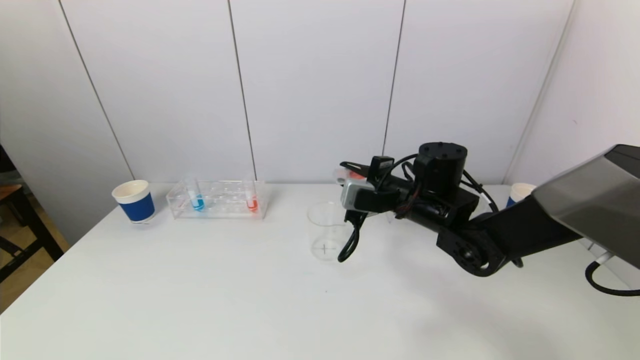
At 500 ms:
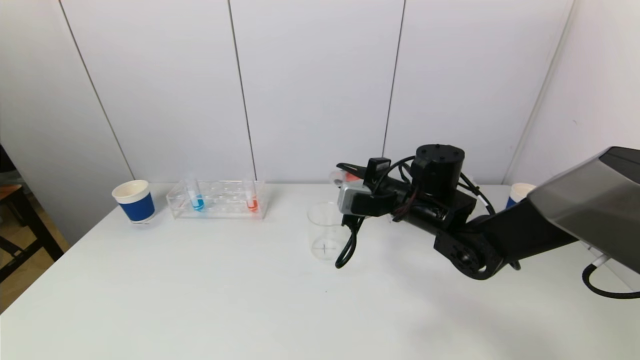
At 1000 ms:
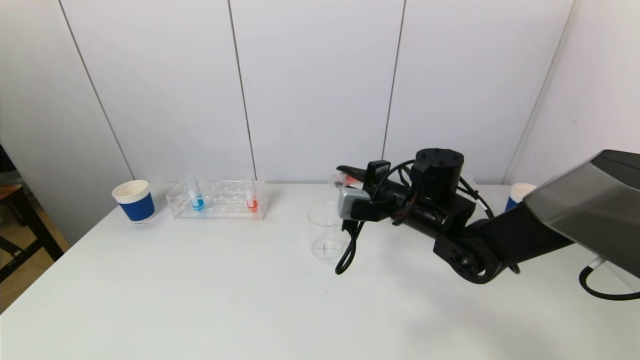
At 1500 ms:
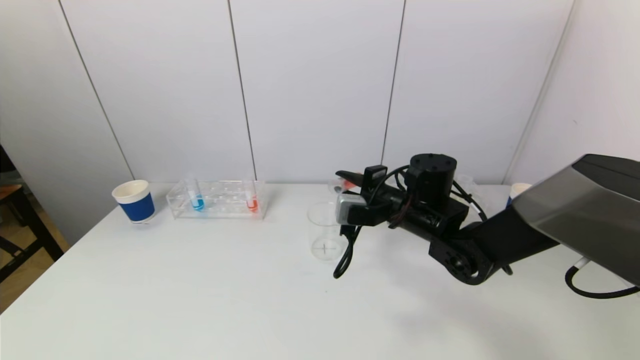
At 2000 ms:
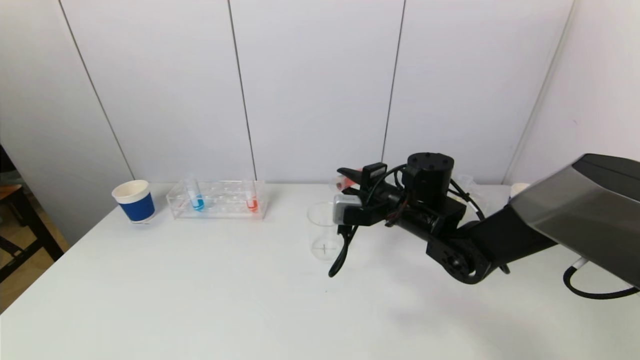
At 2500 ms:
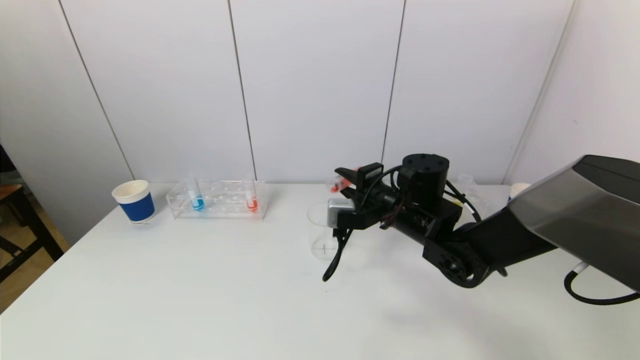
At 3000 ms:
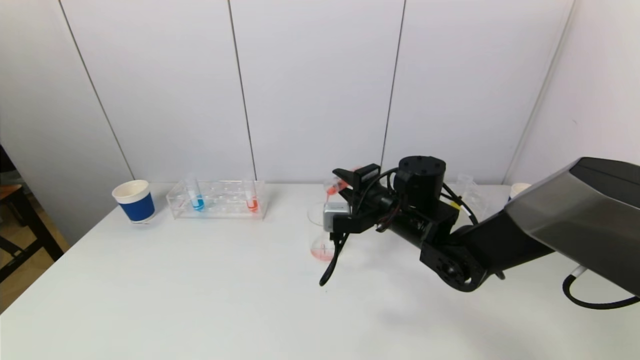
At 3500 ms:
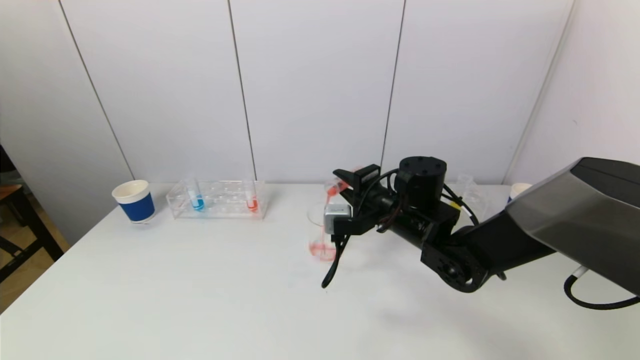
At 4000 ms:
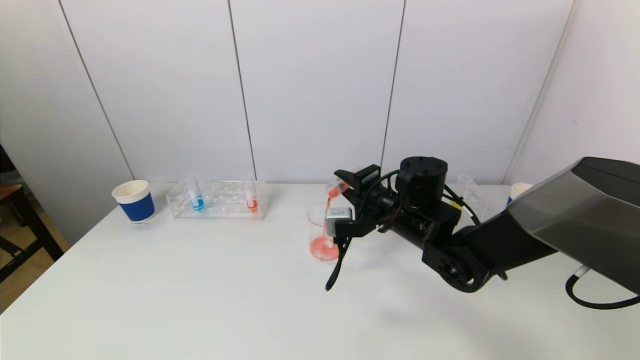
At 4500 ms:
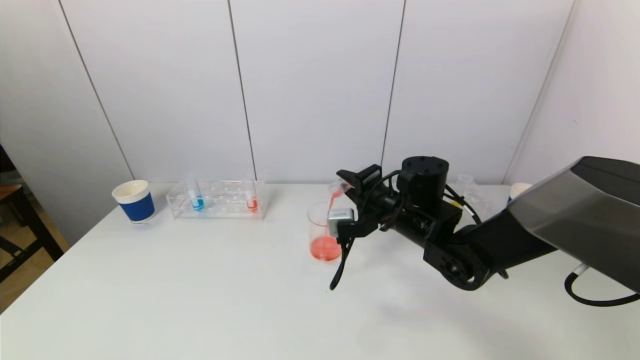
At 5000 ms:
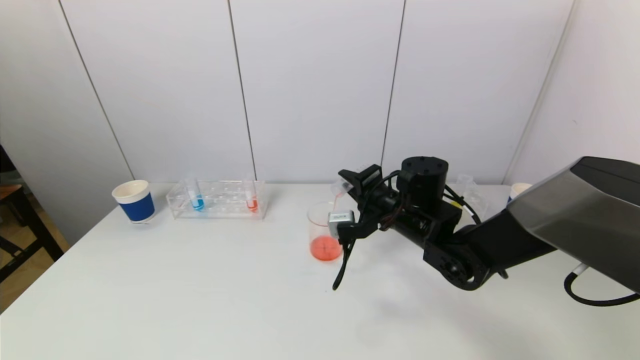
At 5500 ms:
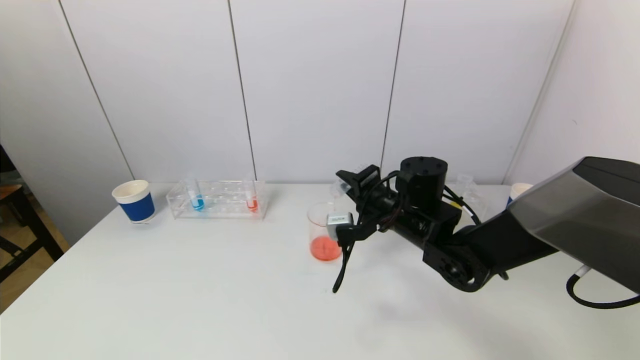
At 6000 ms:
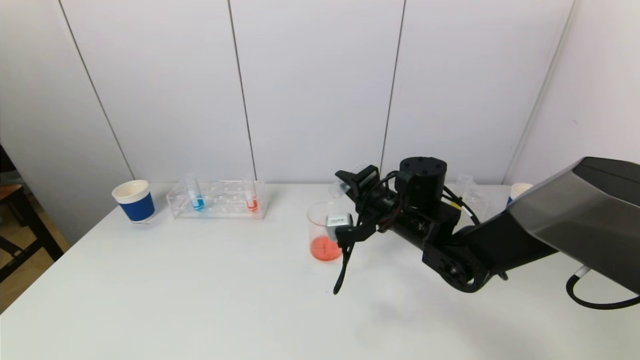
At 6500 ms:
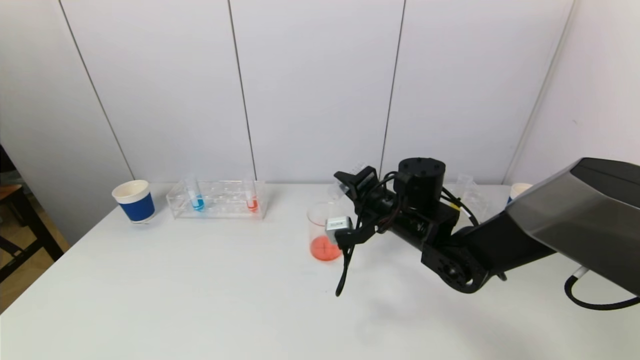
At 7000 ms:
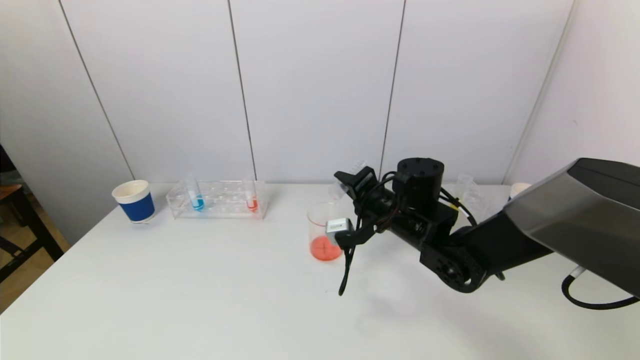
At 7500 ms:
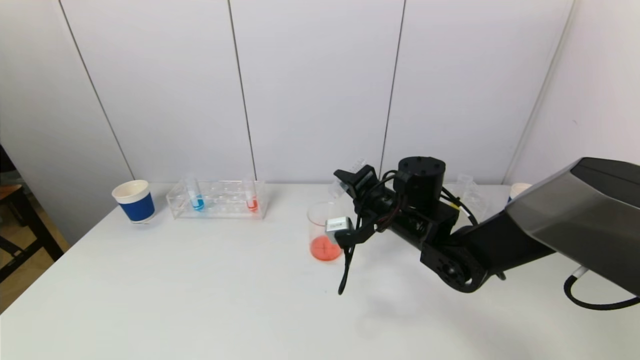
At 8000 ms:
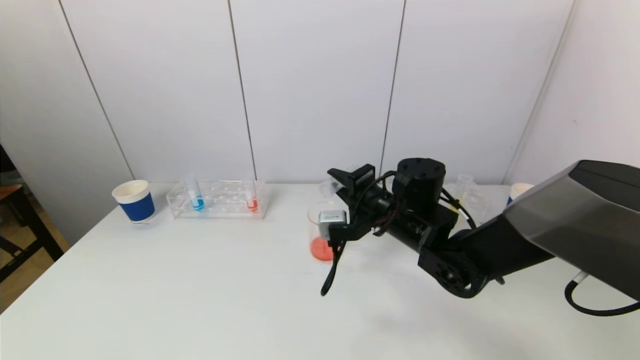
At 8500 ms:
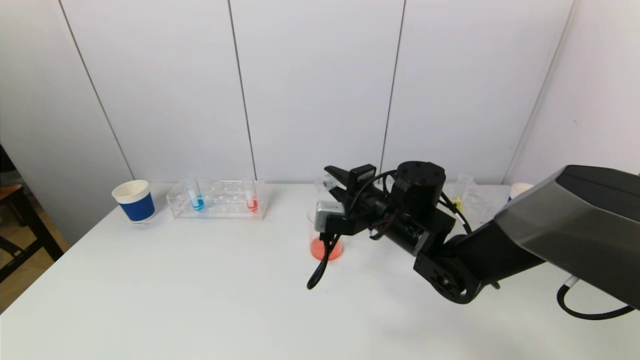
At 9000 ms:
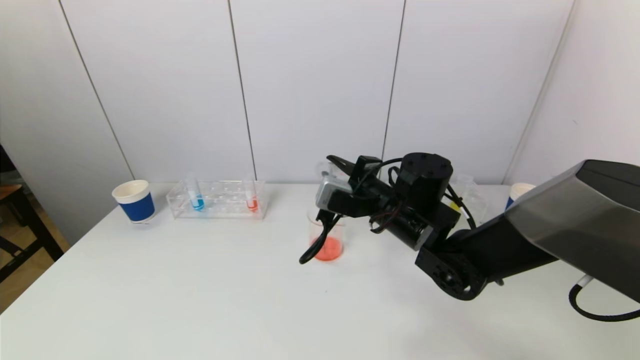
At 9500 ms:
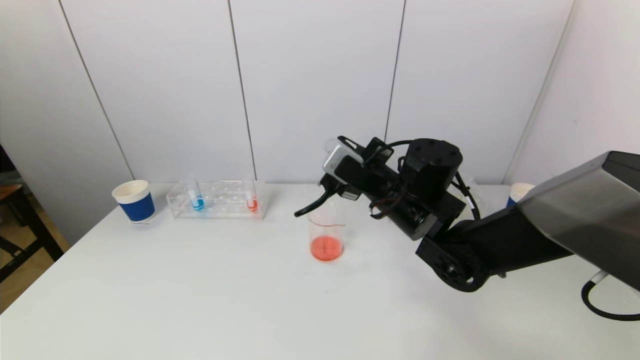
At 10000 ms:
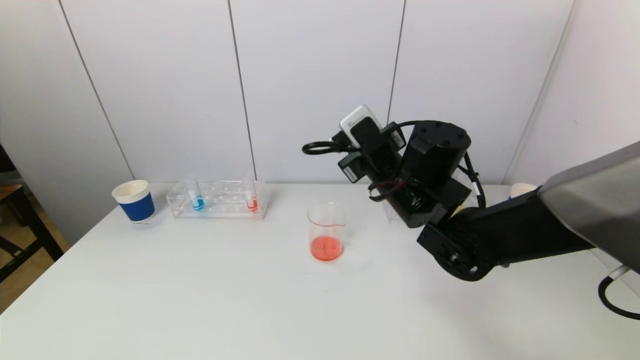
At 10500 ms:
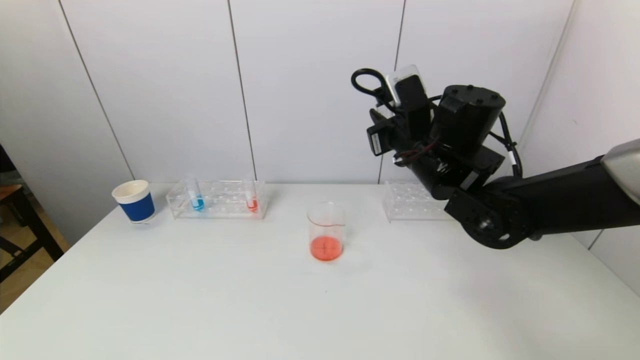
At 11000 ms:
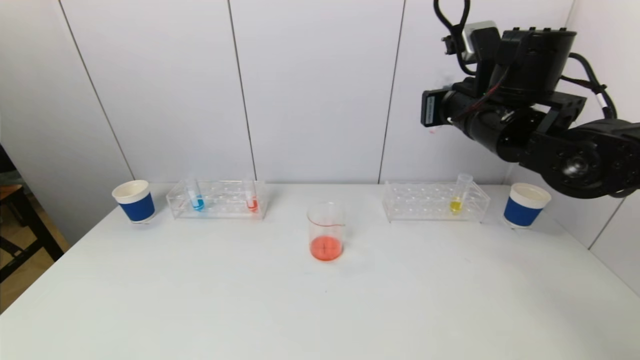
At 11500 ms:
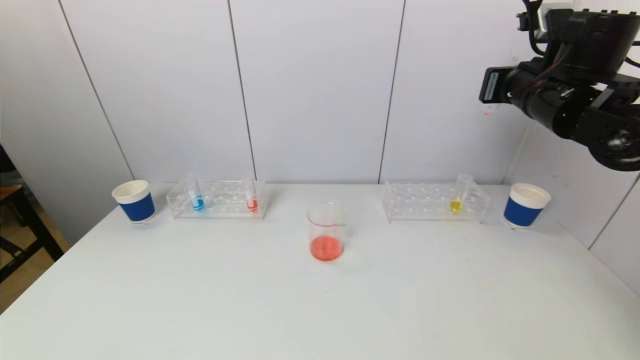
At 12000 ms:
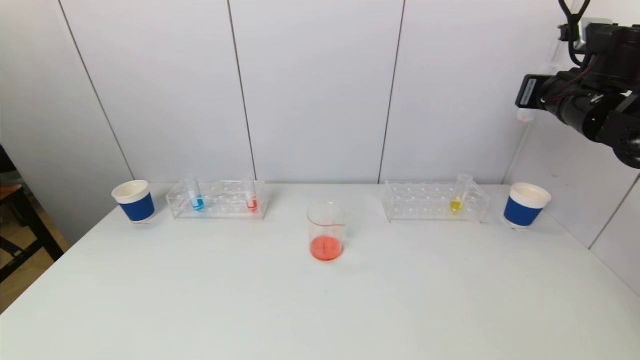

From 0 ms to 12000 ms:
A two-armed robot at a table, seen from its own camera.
Task of the whole recording: pick up a test tube with pigment on left test tube rack and a test tube with pigment on right test tube rack by grippers and pour them into the beaker.
Step, from 0 ms to 7500 ms: Pour the red reagent into the graduated cylinder with the right gripper.
From 0 ms to 2000 ms: The grippers move only a little.
From 2000 ms to 4000 ms: The grippers move only a little.
From 4000 ms to 8000 ms: The grippers move only a little.
From 8000 ms to 10000 ms: The right gripper moves upward, roughly 5 cm.
From 10000 ms to 12000 ms: The right gripper goes some 25 cm to the right.

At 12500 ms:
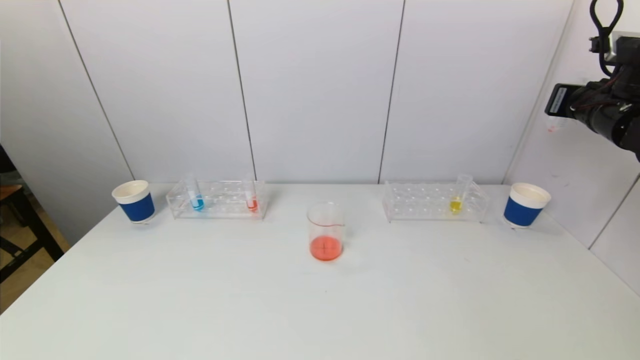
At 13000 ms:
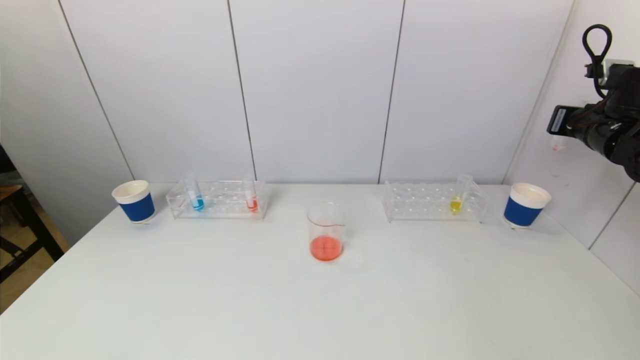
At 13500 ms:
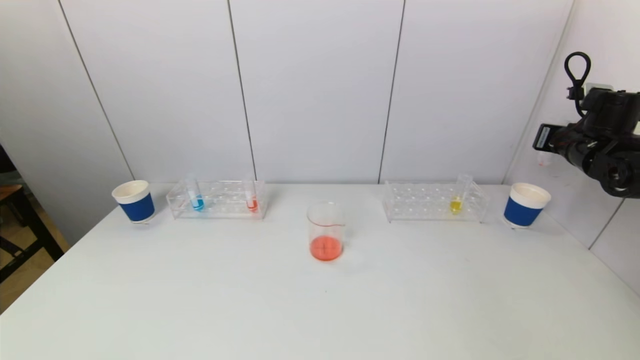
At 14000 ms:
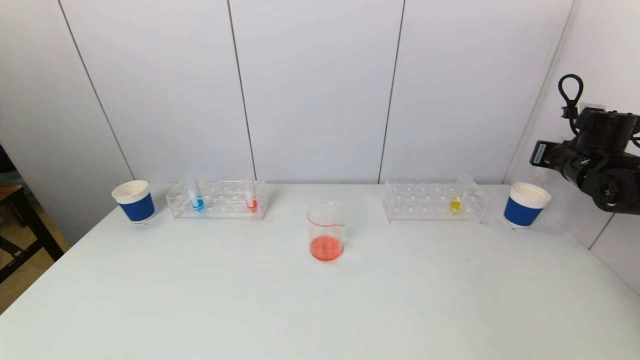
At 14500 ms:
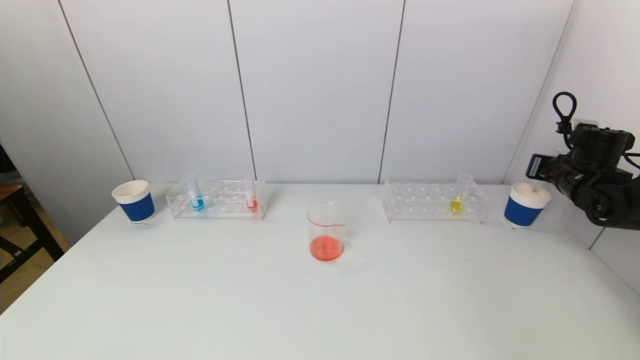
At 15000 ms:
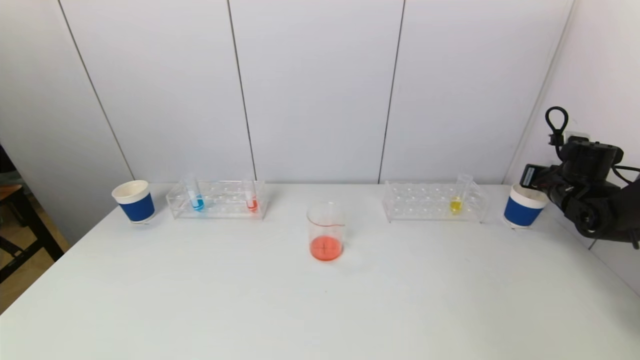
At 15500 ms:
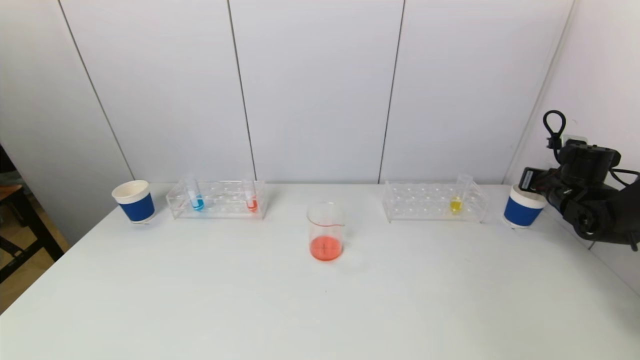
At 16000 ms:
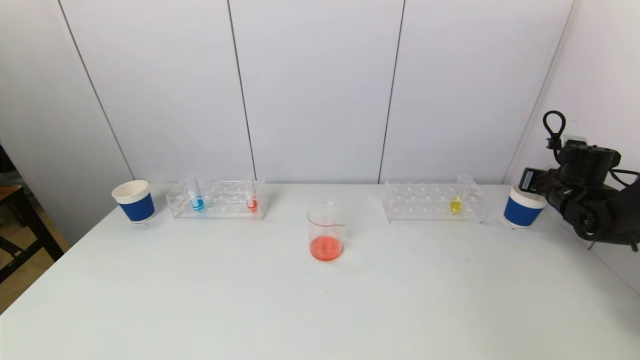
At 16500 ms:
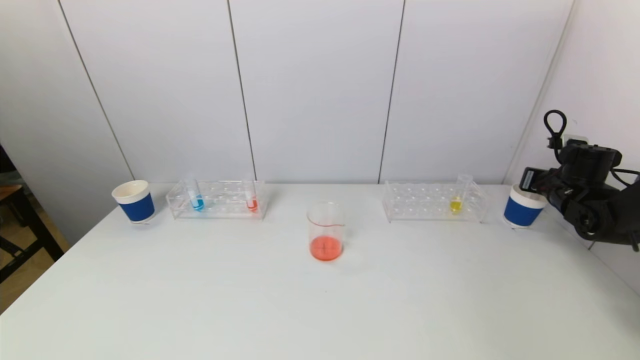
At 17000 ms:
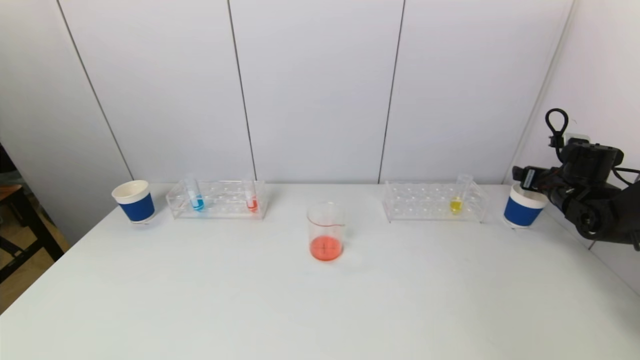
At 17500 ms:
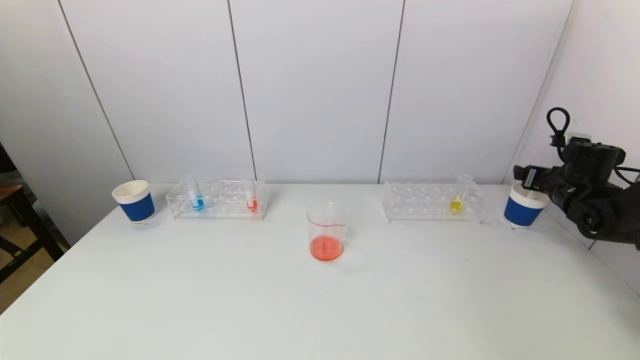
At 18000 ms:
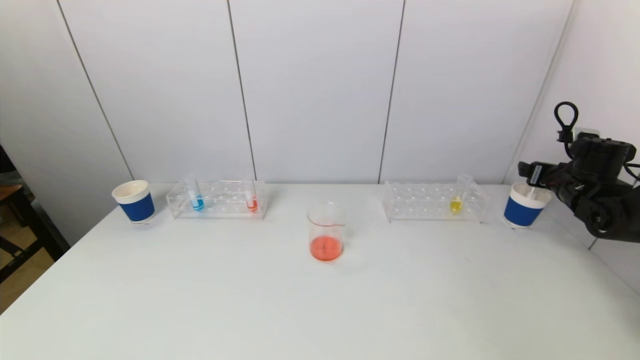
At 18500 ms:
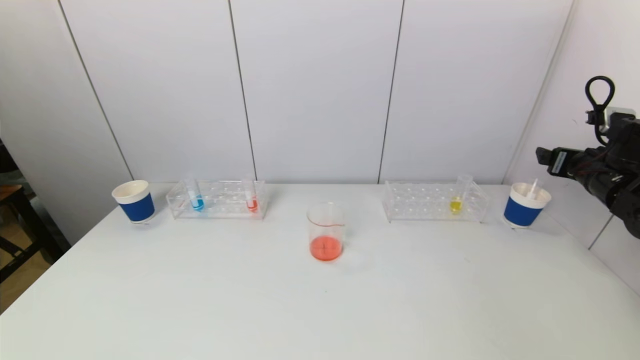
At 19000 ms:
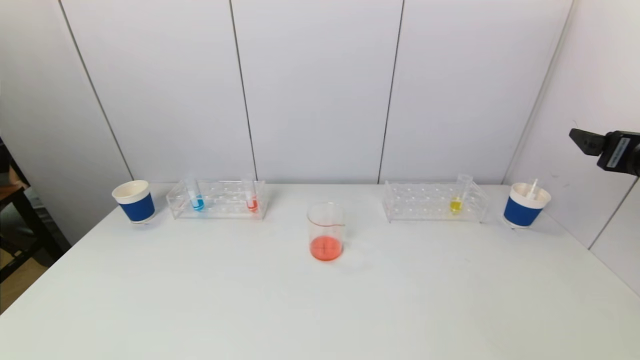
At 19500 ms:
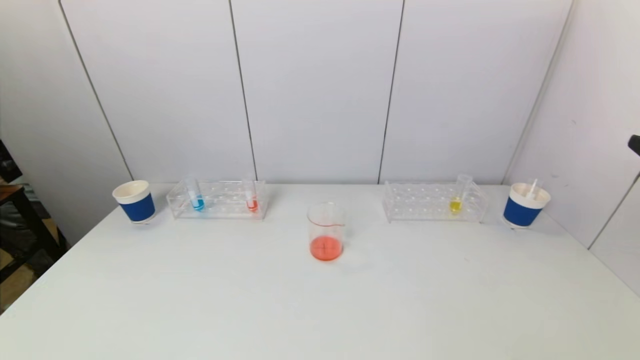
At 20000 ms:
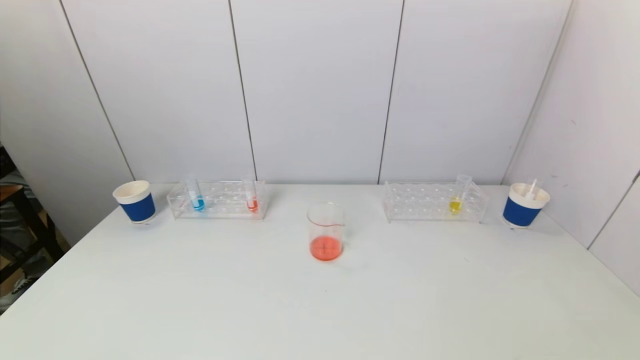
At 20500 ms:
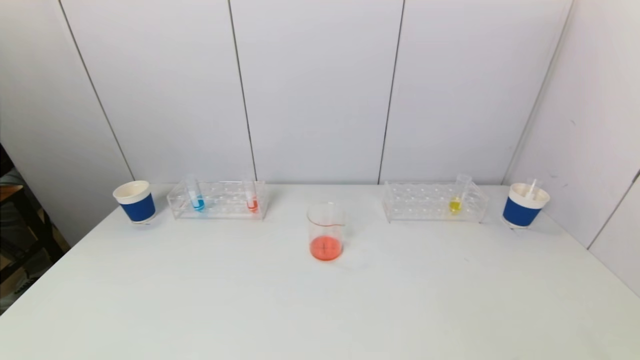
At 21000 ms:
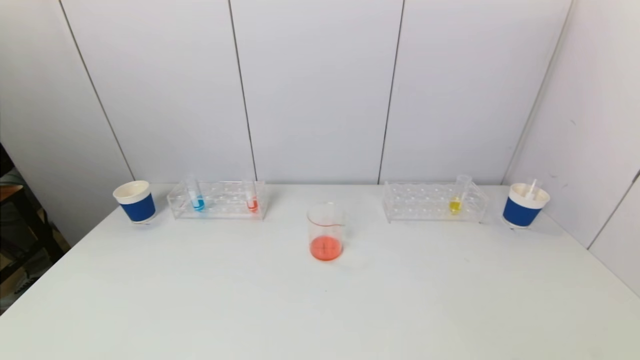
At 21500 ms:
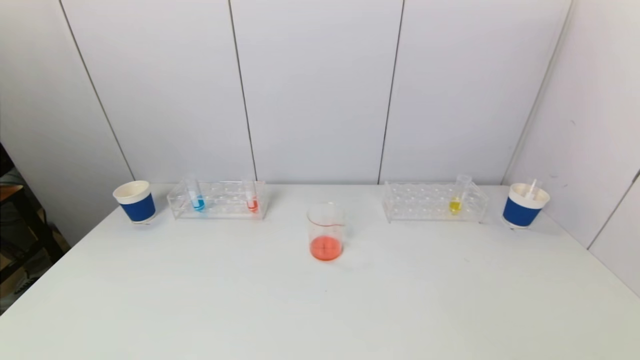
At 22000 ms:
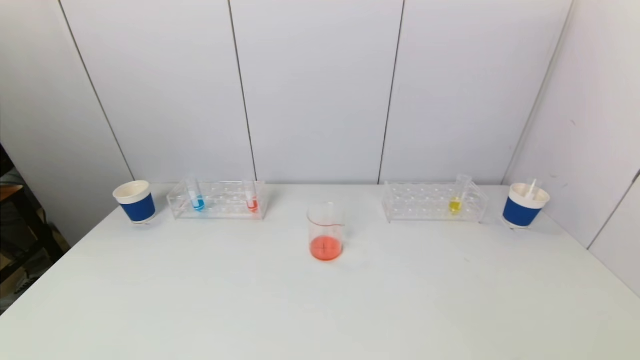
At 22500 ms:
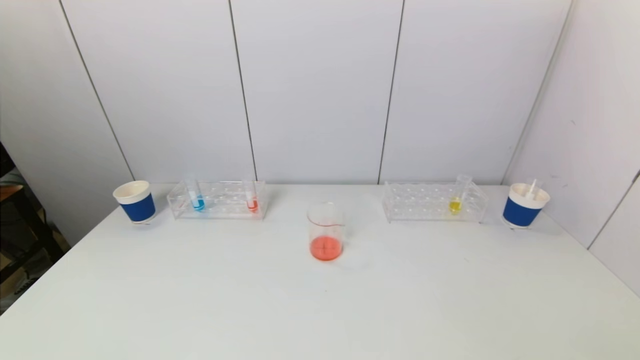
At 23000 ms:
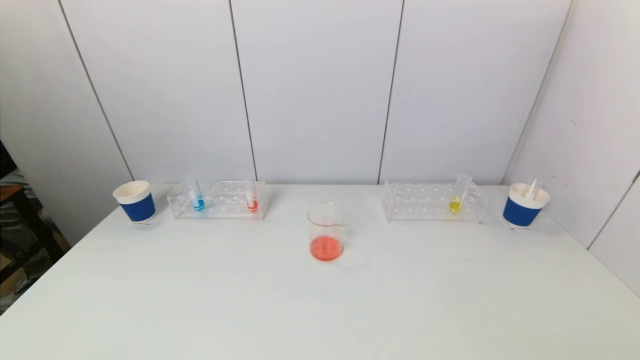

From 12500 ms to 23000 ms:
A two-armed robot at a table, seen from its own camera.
Task of the whole recording: pick up a test tube with pigment on left test tube rack and a test tube with pigment on right test tube rack by grippers and pour them into the beaker.
Step, from 12500 ms to 16500 ms: Place the test tube into the paper cup with the right gripper.
From 12500 ms to 14500 ms: The right gripper travels downward by approximately 15 cm.
From 14500 ms to 16500 ms: The grippers make only small movements.
From 16500 ms to 19000 ms: The right gripper heads backward and upward, covering some 20 cm, and opens up.
From 19000 ms to 21000 ms: The right gripper shifts approximately 30 cm backward.
